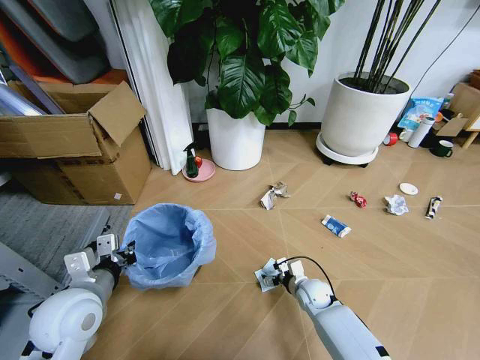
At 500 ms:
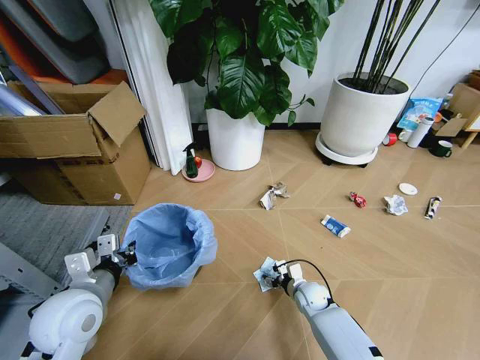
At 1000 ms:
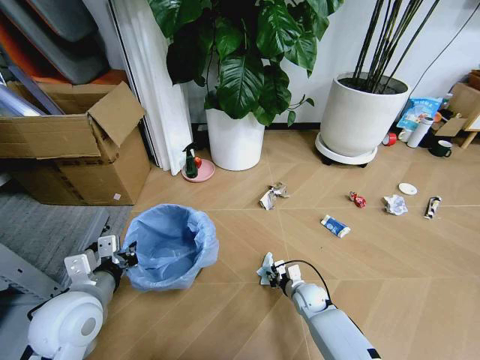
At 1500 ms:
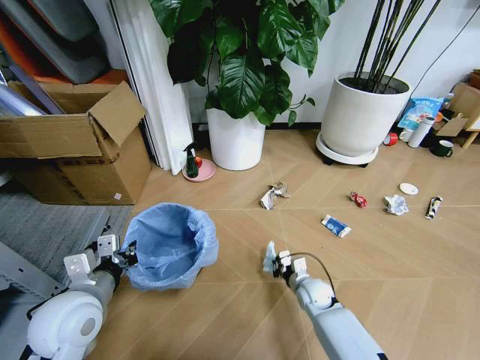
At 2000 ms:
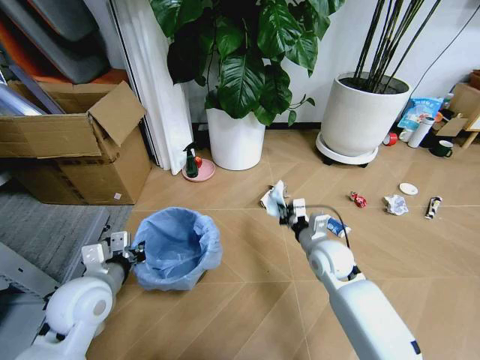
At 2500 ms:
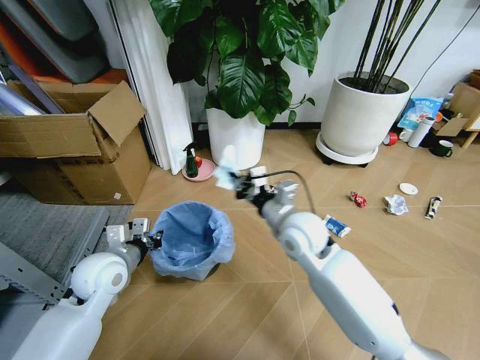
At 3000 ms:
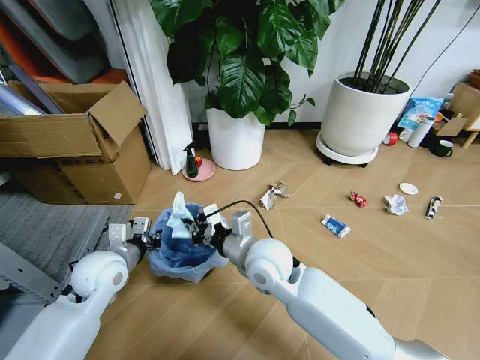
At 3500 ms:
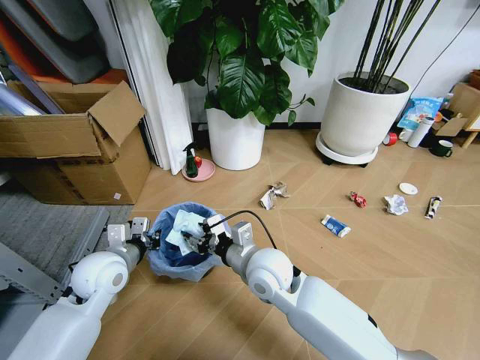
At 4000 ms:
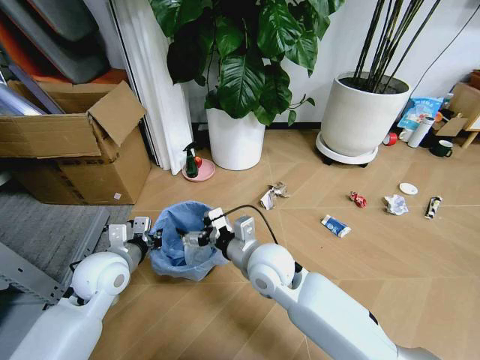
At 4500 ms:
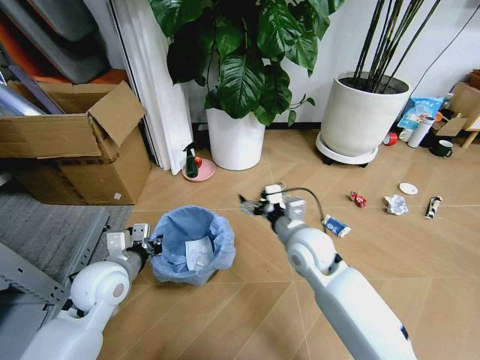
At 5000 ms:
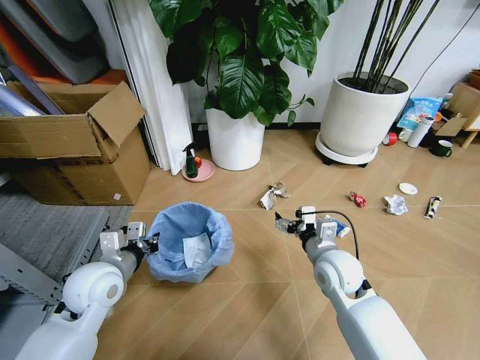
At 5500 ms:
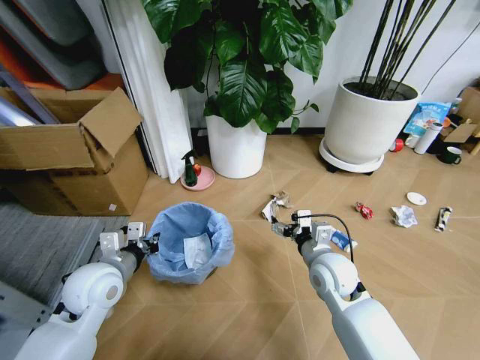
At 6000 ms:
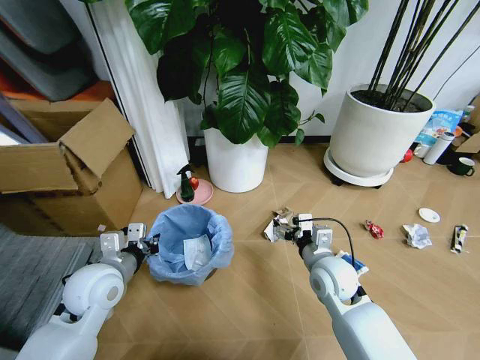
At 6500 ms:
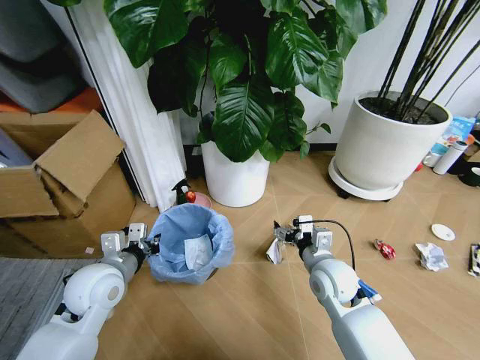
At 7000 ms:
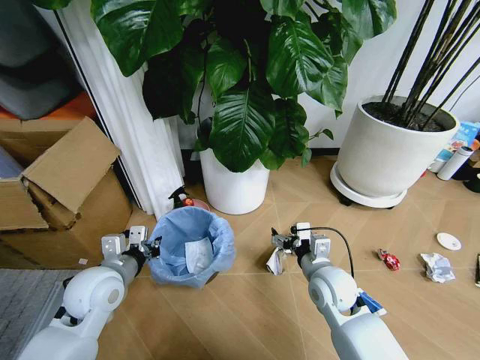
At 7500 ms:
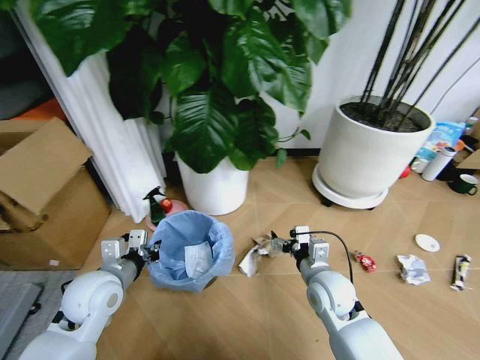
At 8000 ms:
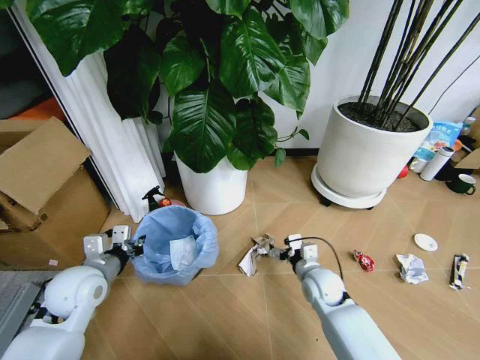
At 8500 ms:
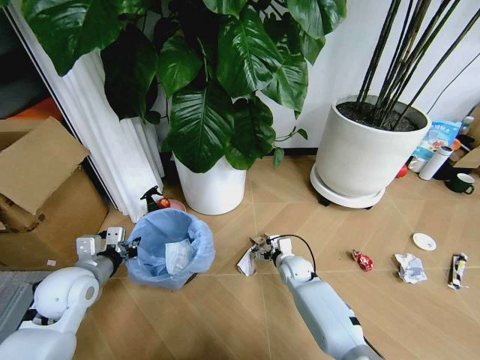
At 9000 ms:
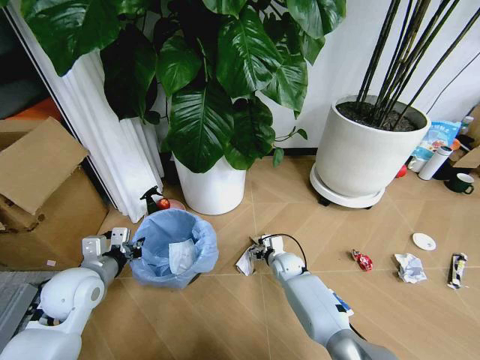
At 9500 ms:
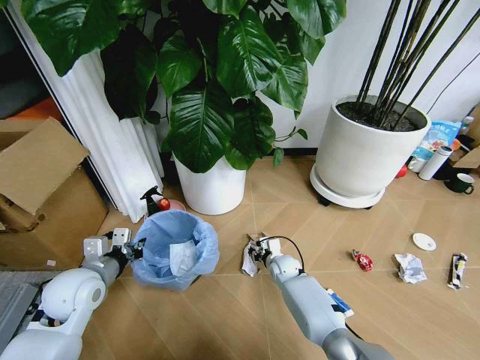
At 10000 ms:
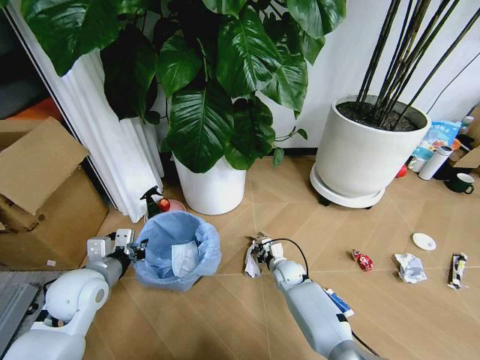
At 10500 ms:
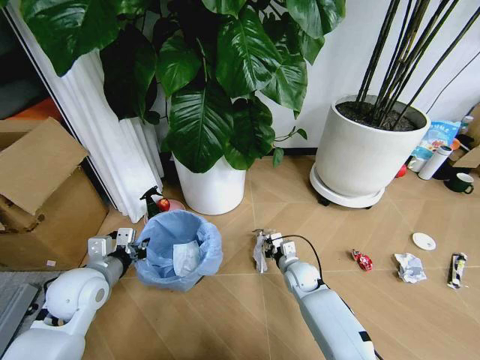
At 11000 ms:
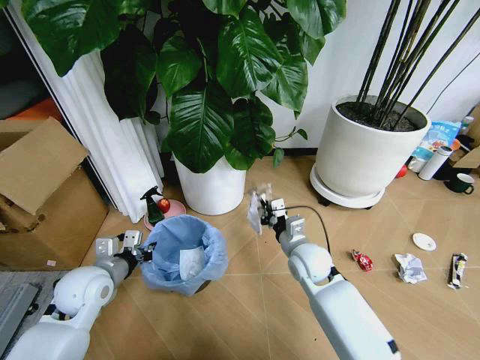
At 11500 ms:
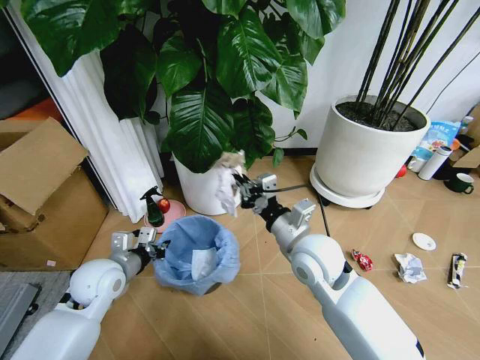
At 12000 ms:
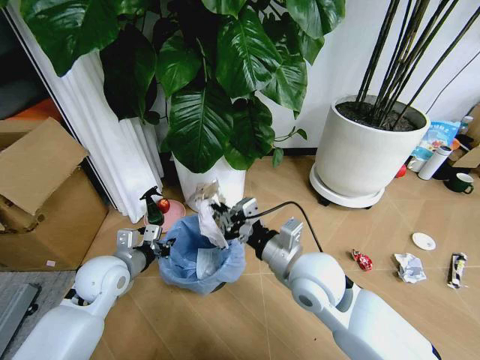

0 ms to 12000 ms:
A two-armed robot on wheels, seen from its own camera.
Task of the whole recording: Pick up the trash bin and place the garbage on the floor into it.
0 ms to 2000 ms: The right gripper moves upward, roughly 20 cm, and closes its fingers.
2000 ms to 4000 ms: The left gripper shifts about 5 cm forward; the right gripper travels to the left and upward by some 20 cm, and opens up.
4000 ms to 6000 ms: The right gripper shifts roughly 15 cm to the right and downward.
6000 ms to 8000 ms: The right gripper is displaced downward by roughly 10 cm.
8000 ms to 10000 ms: The right gripper is displaced downward, forward and to the left by roughly 15 cm, and closes up.
10000 ms to 12000 ms: The right gripper heads upward and backward, covering roughly 35 cm.

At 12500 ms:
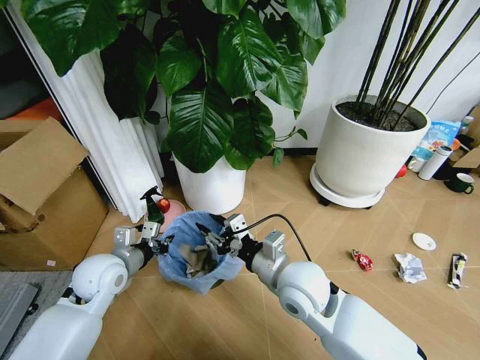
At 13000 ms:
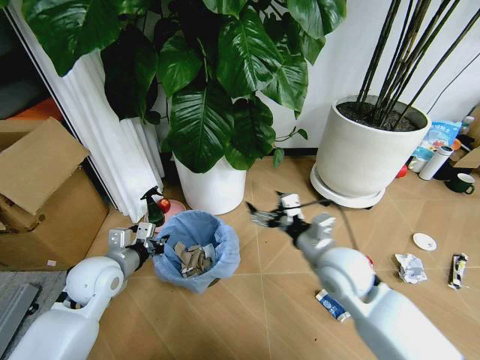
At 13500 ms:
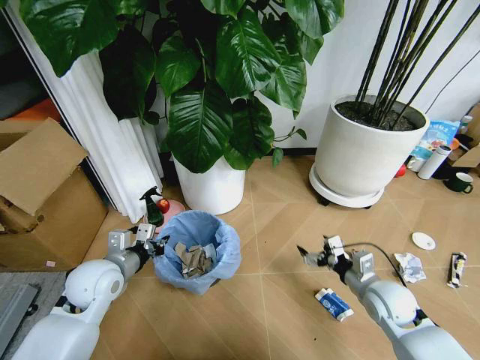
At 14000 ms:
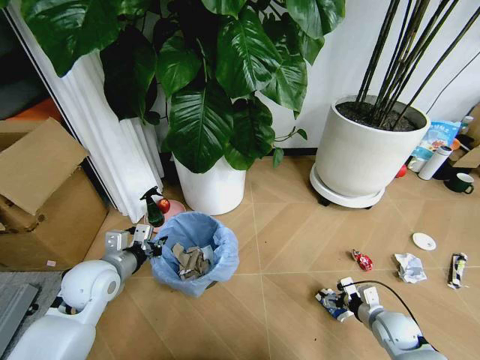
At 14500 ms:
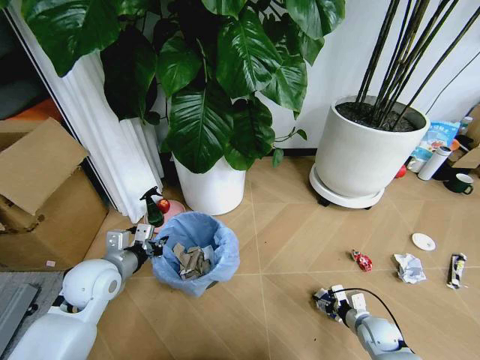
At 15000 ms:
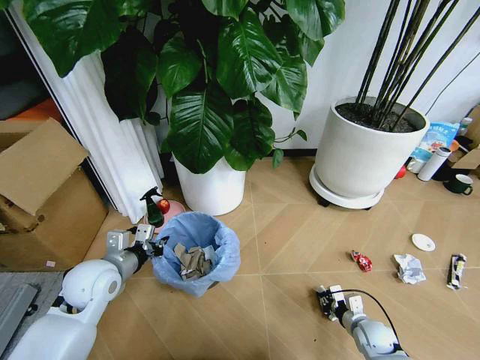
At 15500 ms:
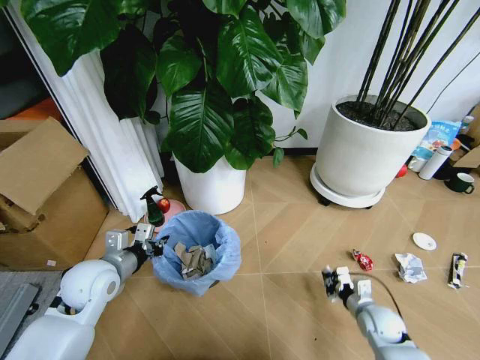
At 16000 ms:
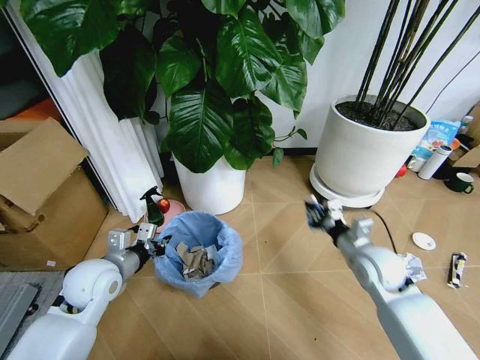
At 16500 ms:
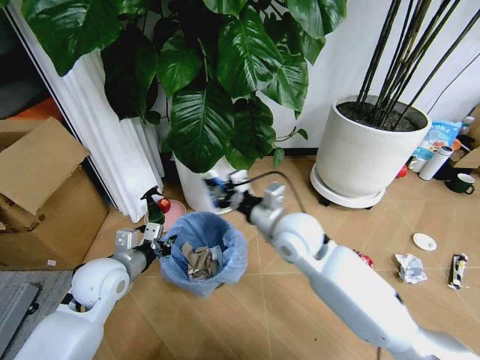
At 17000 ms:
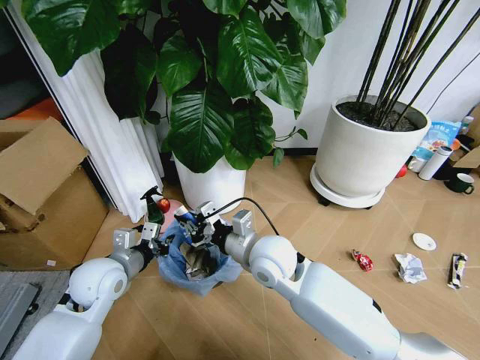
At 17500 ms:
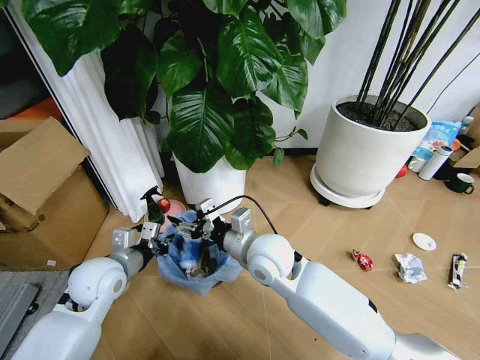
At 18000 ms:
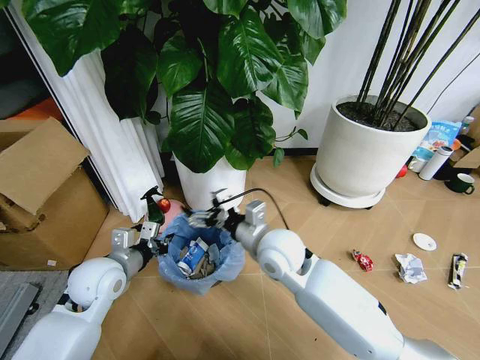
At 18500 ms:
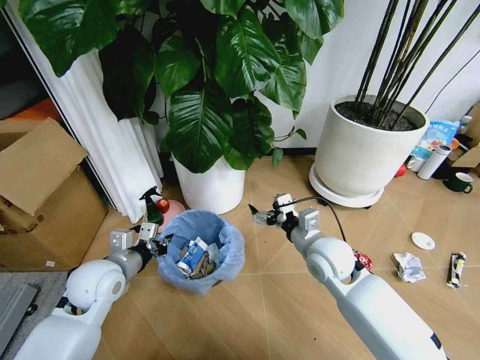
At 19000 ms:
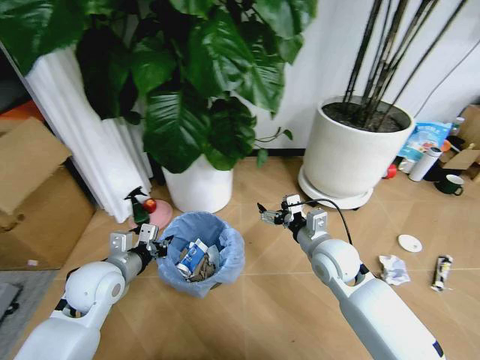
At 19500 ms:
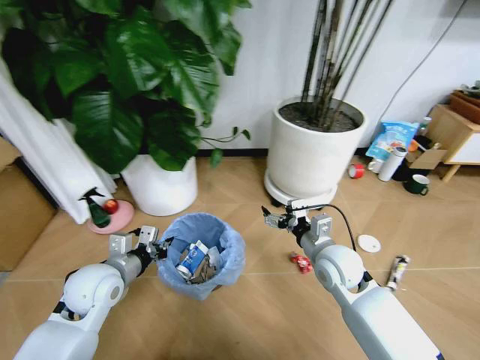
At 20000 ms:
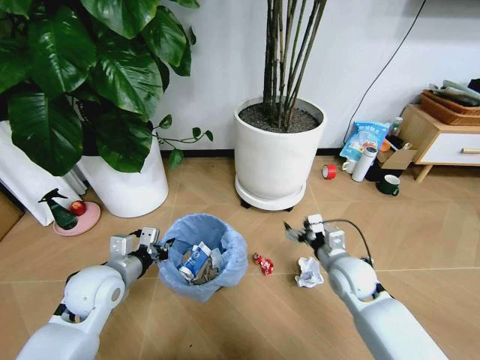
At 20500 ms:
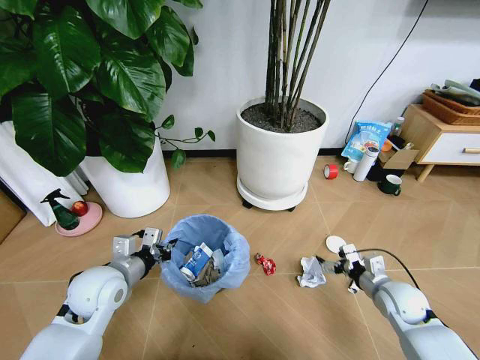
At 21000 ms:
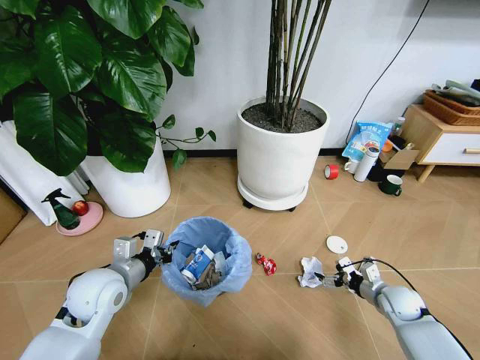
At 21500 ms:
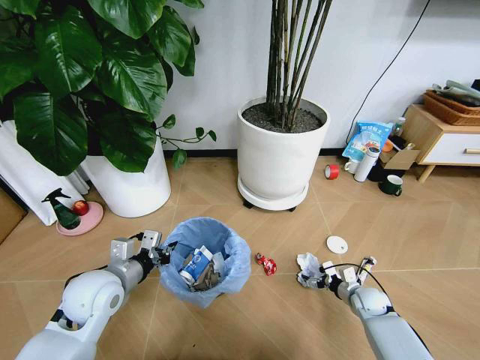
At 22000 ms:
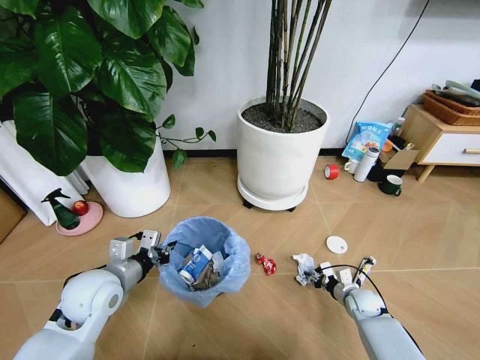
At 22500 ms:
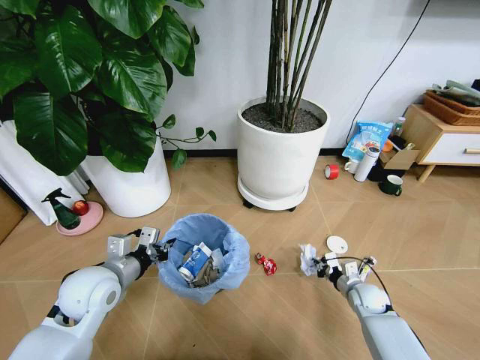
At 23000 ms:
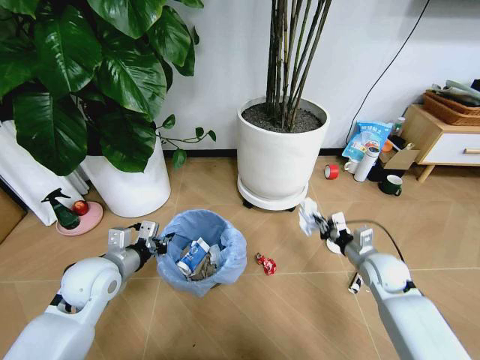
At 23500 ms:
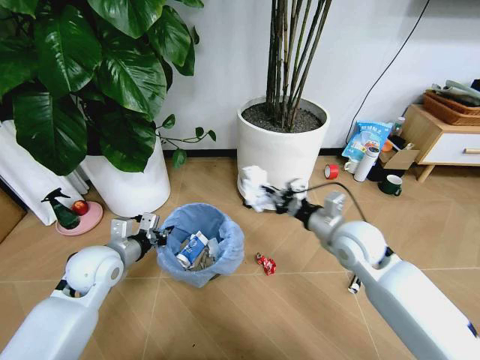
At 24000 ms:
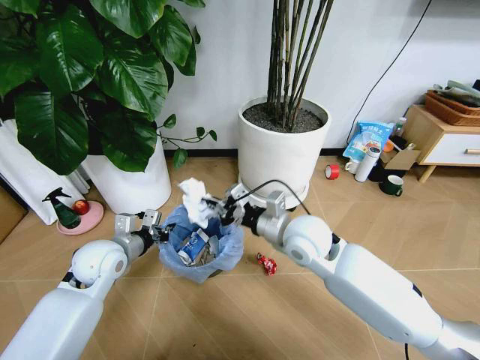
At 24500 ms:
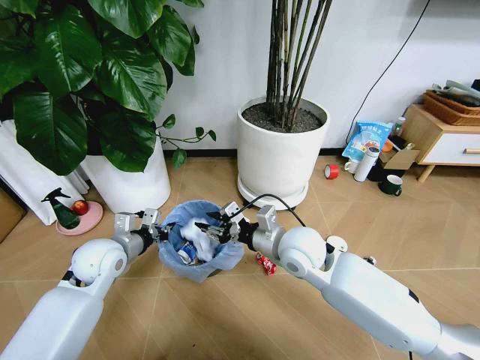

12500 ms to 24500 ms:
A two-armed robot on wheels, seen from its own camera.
Task of the whole recording: Pick up the trash bin and place the garbage on the floor into it.
12500 ms to 14500 ms: The right gripper heads downward and to the right, covering roughly 40 cm.
14500 ms to 16500 ms: The right gripper goes about 40 cm upward and to the left, and closes.
16500 ms to 18500 ms: The right gripper heads to the right and downward, covering roughly 10 cm, and opens.
18500 ms to 20500 ms: The right gripper moves to the right and downward, some 20 cm.
20500 ms to 22500 ms: The right gripper travels downward by approximately 10 cm, and closes.
22500 ms to 24500 ms: The left gripper shifts approximately 5 cm forward; the right gripper goes about 35 cm upward and to the left, and opens up.

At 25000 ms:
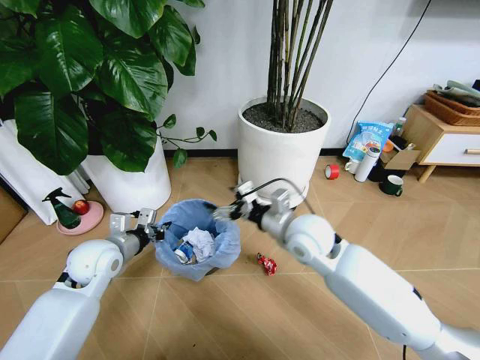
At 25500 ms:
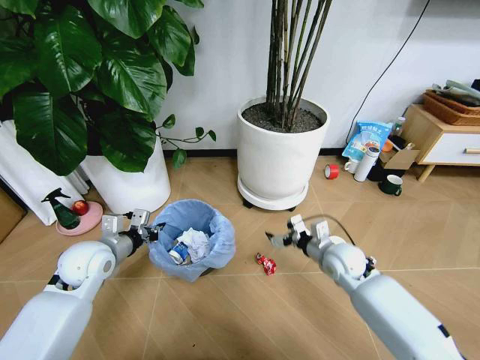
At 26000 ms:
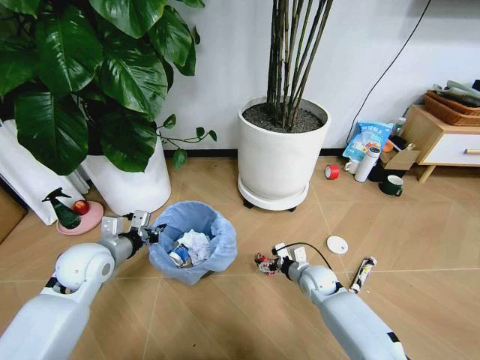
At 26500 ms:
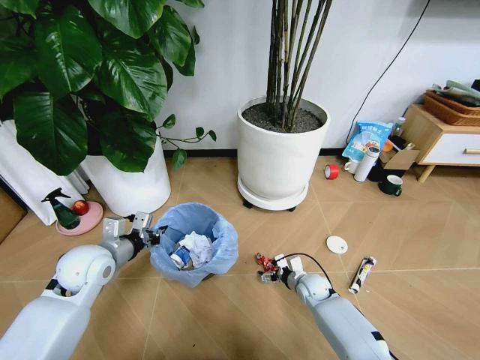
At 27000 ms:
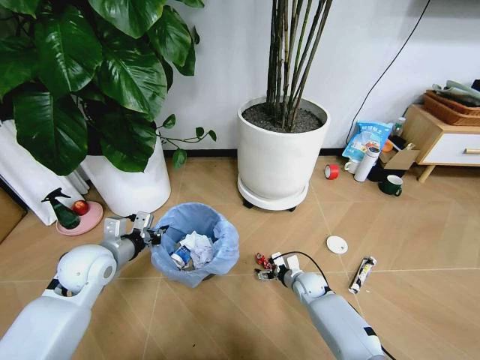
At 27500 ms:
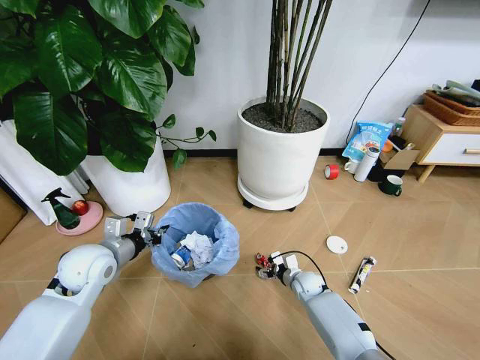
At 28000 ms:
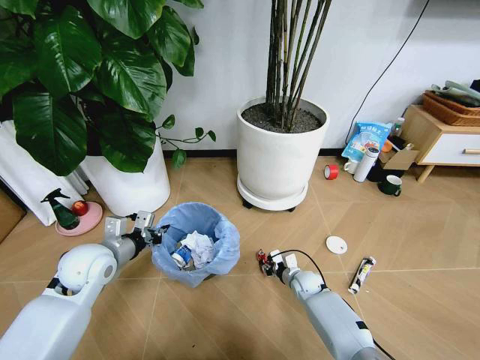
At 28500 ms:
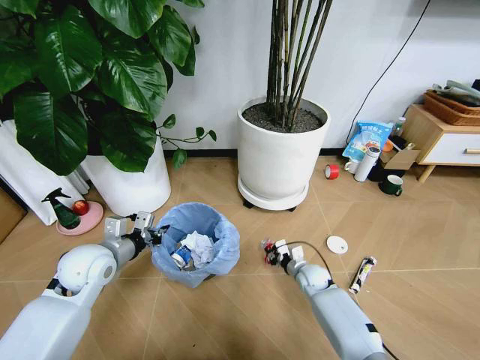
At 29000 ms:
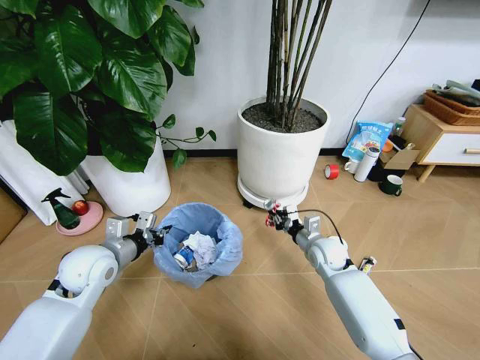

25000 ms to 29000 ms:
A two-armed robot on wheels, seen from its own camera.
Task of the whole recording: Pick up the trash bin and place the garbage on the floor into it.
25000 ms to 27000 ms: The right gripper shifts roughly 30 cm downward.
27000 ms to 29000 ms: The right gripper heads upward, covering roughly 15 cm, and closes its fingers.
